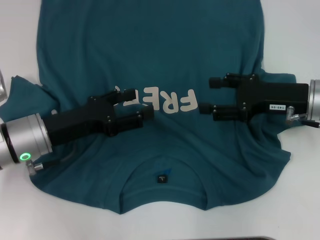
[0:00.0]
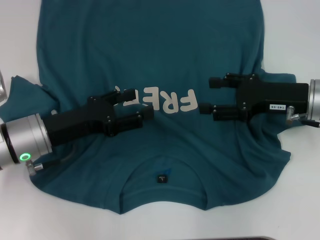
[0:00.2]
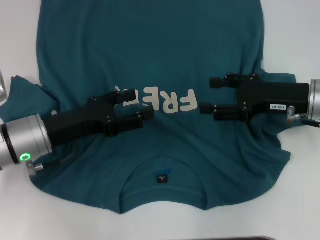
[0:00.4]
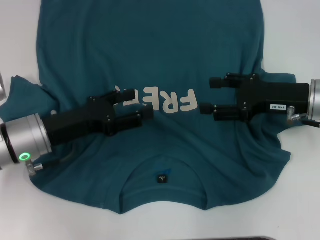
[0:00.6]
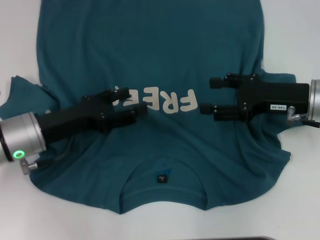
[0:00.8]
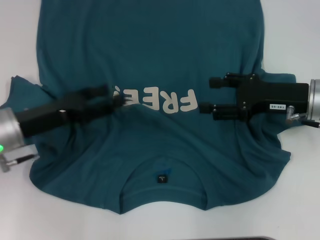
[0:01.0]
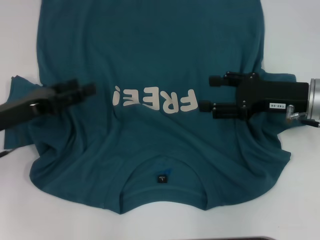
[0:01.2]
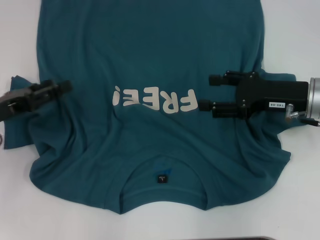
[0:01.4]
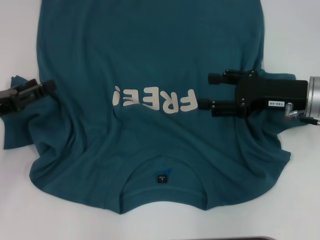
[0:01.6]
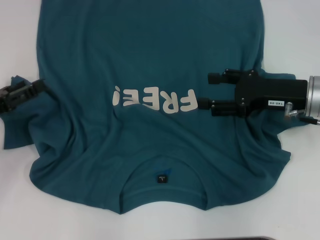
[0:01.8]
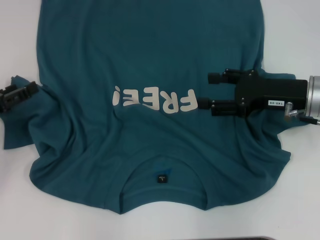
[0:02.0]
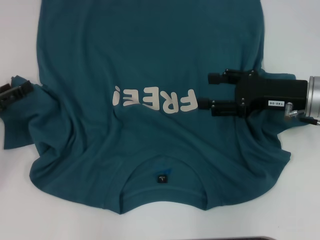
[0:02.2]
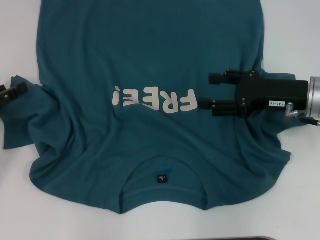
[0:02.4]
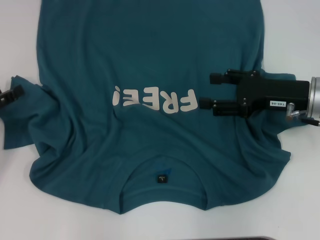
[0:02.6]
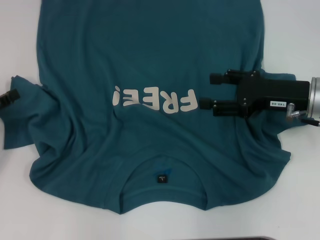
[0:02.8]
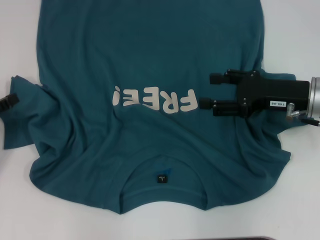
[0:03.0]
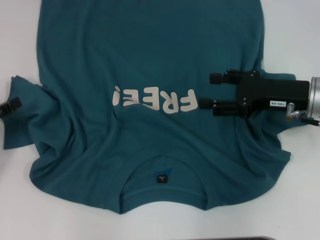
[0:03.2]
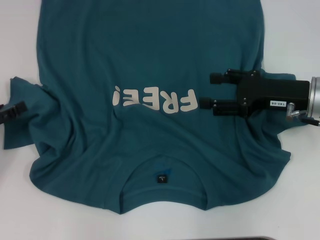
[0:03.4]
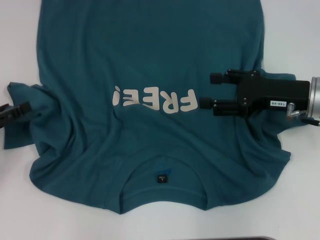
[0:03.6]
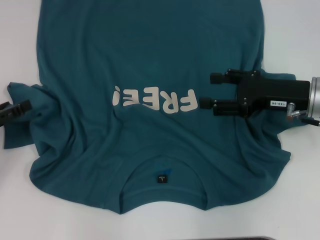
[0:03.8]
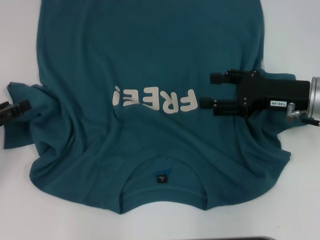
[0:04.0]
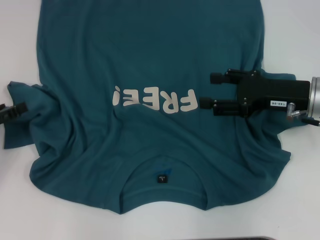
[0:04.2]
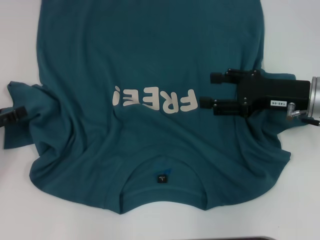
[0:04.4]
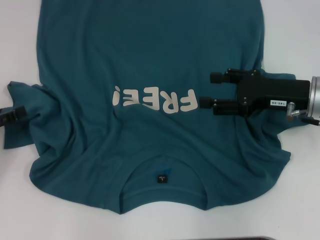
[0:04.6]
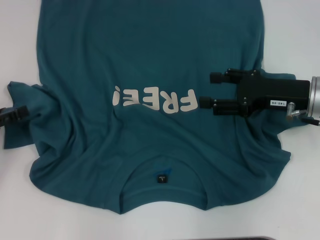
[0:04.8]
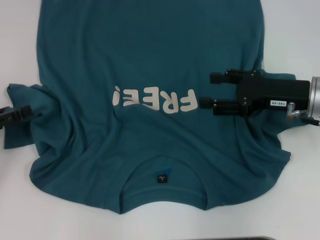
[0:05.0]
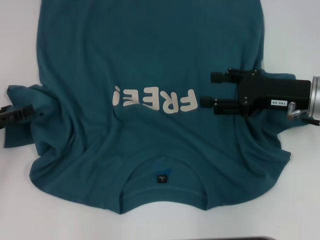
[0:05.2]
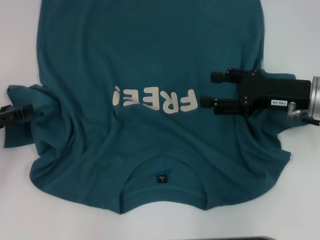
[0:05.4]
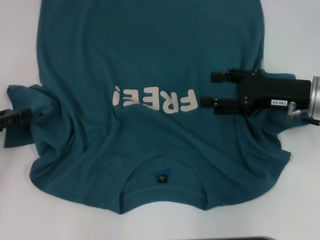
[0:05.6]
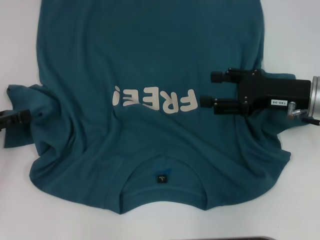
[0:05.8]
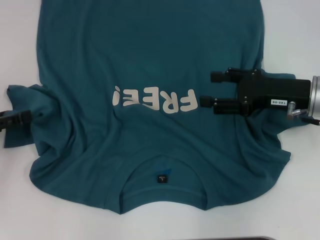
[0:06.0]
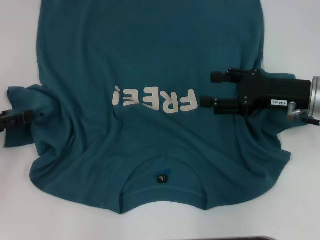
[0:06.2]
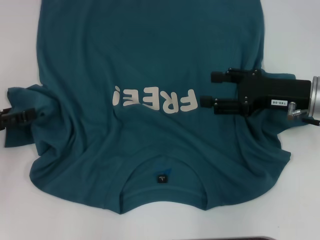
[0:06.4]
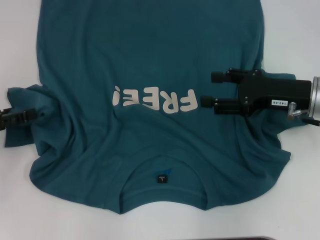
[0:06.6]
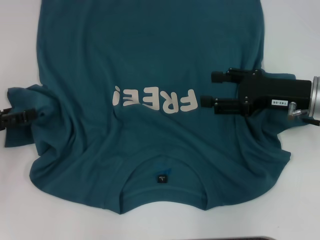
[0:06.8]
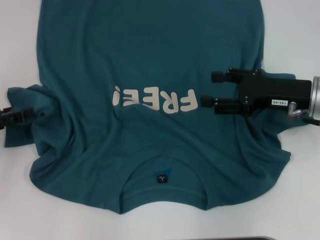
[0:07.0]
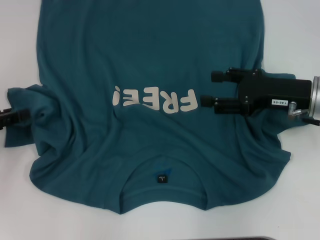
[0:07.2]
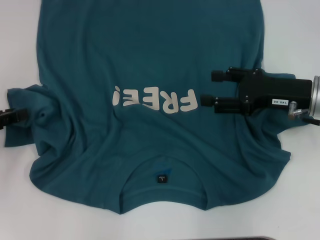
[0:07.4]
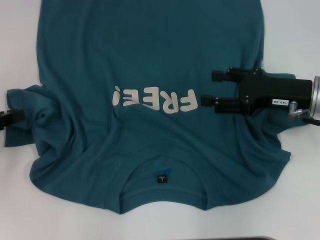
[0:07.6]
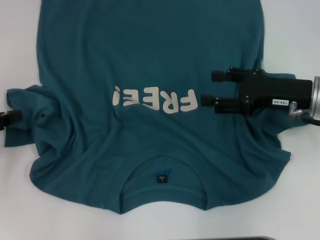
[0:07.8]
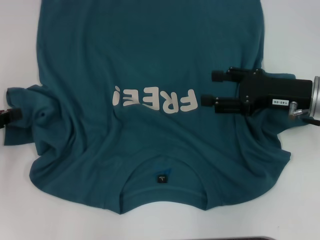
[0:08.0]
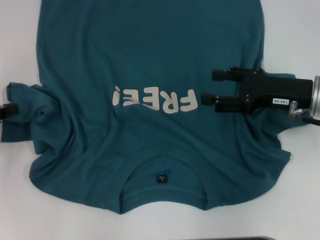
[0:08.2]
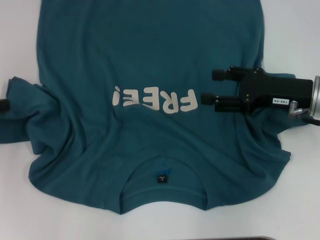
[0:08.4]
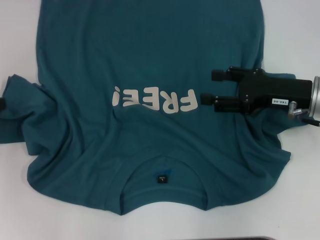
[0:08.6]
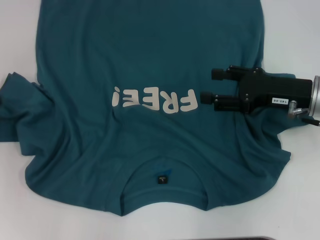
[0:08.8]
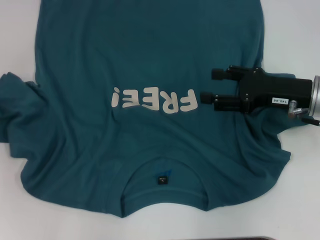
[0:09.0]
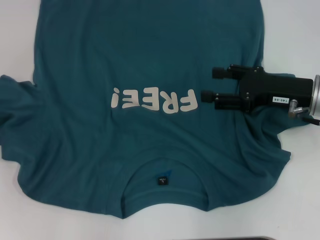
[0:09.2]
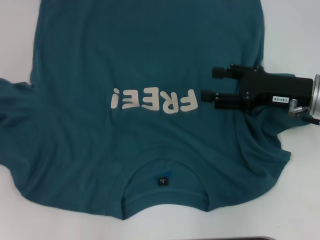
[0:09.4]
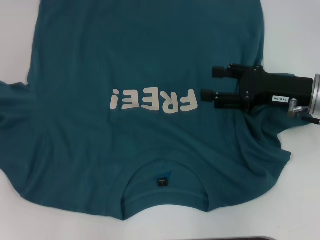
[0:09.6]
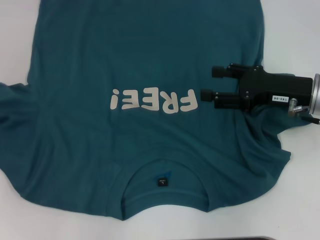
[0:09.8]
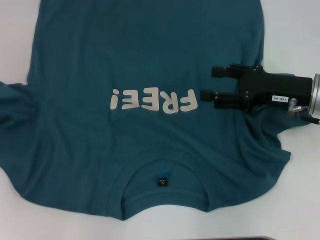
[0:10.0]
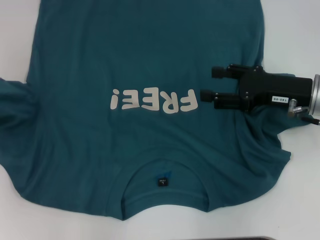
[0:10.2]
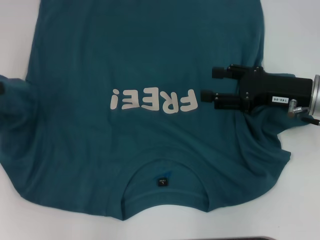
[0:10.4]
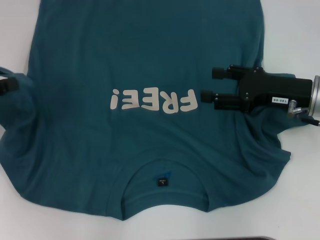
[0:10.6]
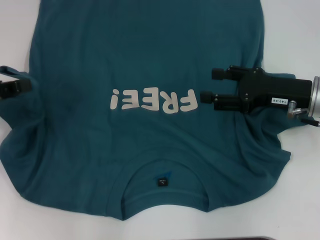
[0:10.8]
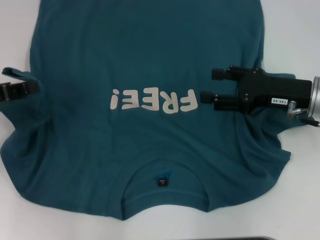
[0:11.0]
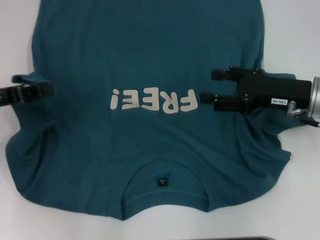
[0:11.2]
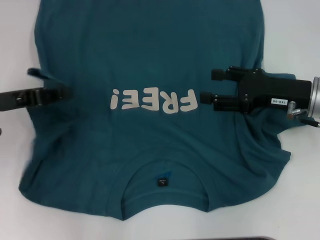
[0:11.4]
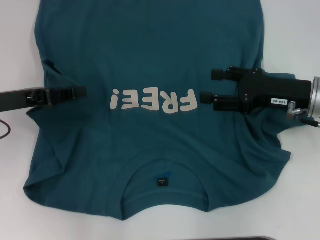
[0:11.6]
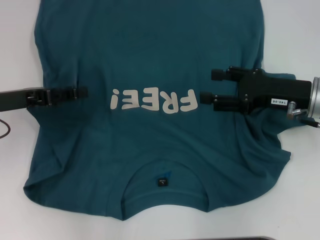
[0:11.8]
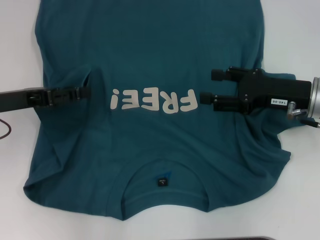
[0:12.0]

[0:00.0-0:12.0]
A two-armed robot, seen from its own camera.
0:00.0 to 0:01.6: The left gripper travels to the left by some 10 cm.
0:01.6 to 0:03.0: There are only small adjustments of the grippers.
0:07.6 to 0:09.0: The grippers move only a little.
0:09.0 to 0:10.4: There are only small adjustments of the grippers.
0:10.4 to 0:12.0: The left gripper heads to the right, covering about 10 cm, and opens up.

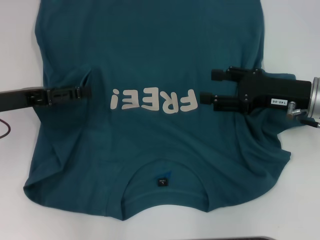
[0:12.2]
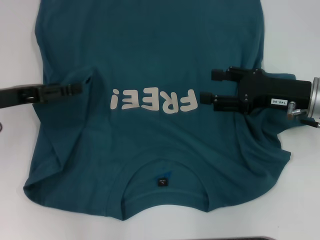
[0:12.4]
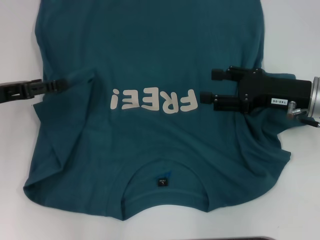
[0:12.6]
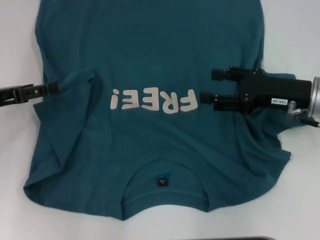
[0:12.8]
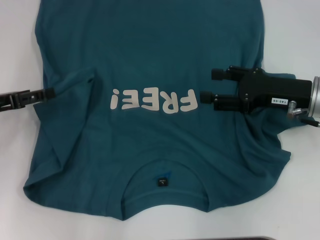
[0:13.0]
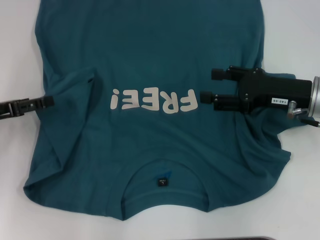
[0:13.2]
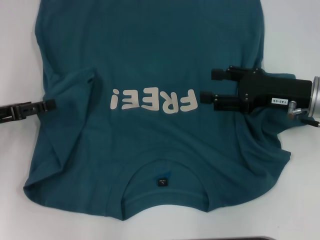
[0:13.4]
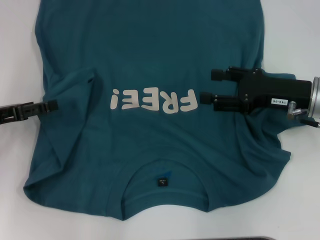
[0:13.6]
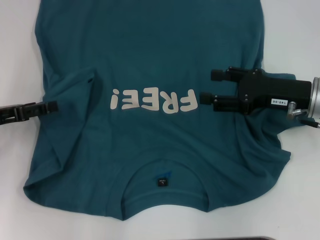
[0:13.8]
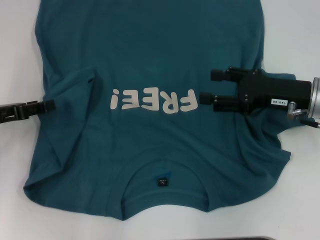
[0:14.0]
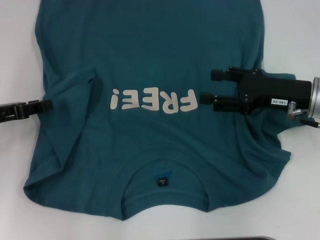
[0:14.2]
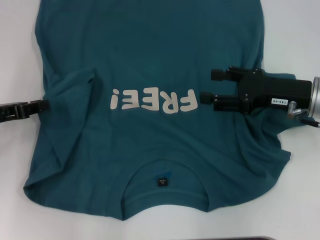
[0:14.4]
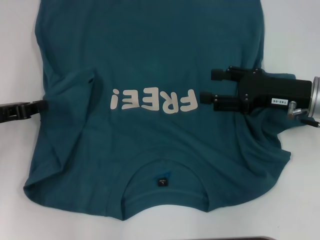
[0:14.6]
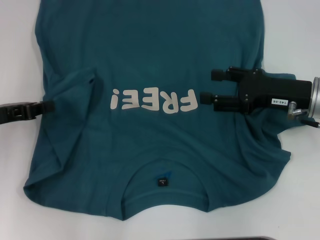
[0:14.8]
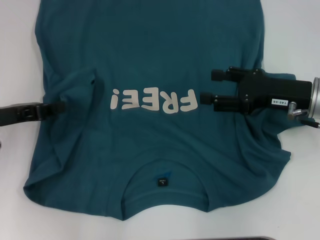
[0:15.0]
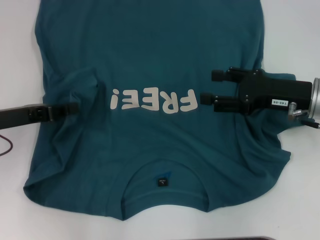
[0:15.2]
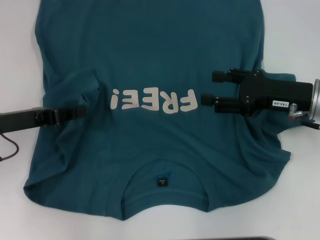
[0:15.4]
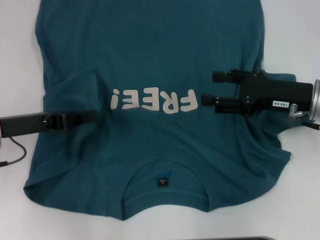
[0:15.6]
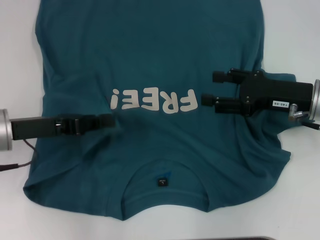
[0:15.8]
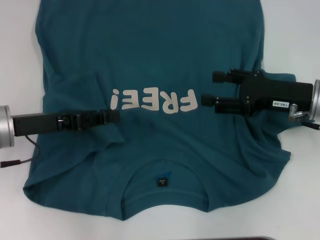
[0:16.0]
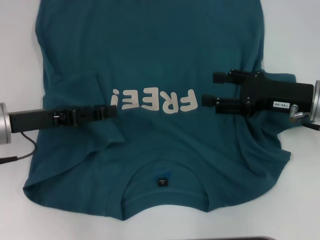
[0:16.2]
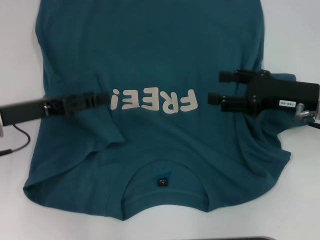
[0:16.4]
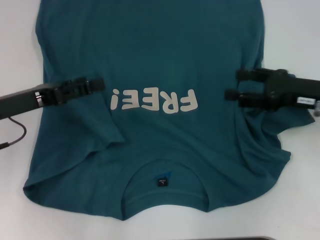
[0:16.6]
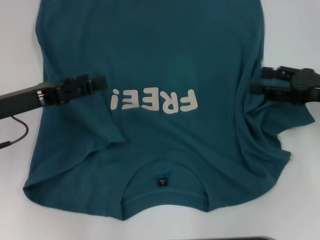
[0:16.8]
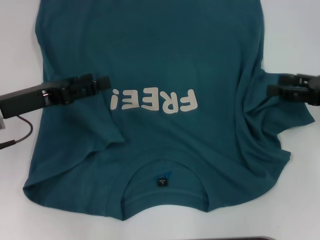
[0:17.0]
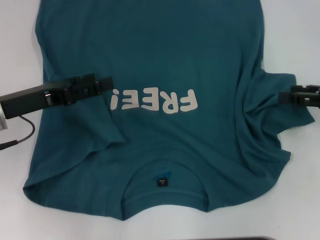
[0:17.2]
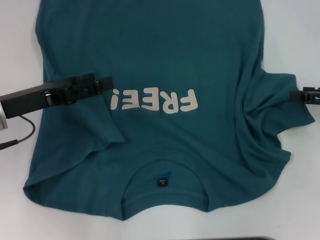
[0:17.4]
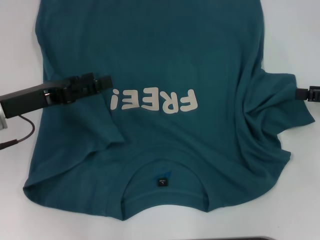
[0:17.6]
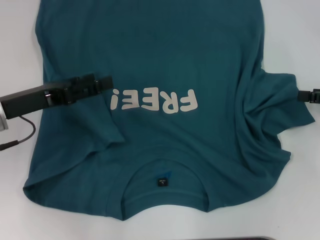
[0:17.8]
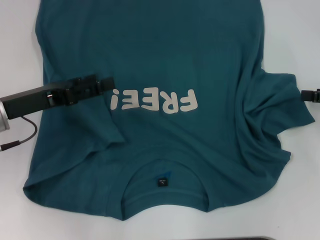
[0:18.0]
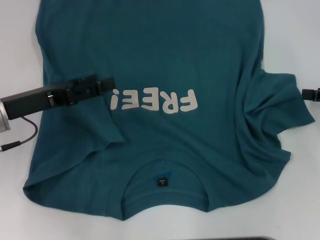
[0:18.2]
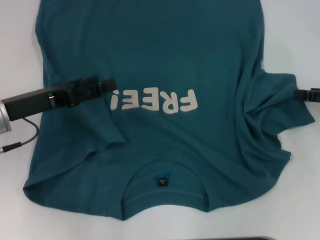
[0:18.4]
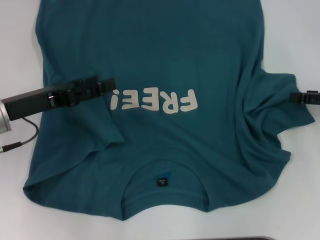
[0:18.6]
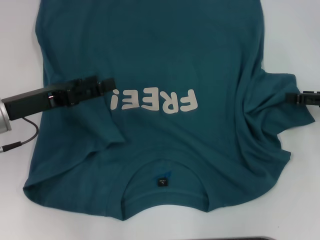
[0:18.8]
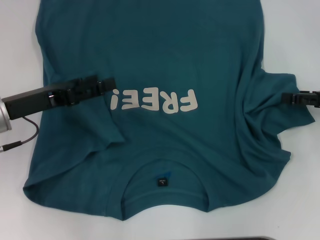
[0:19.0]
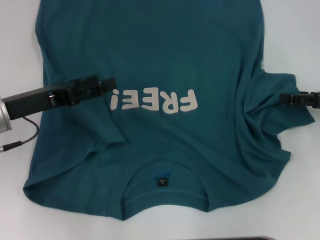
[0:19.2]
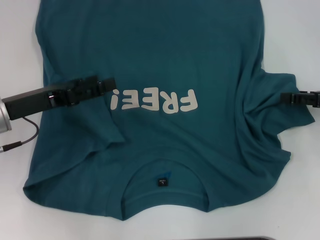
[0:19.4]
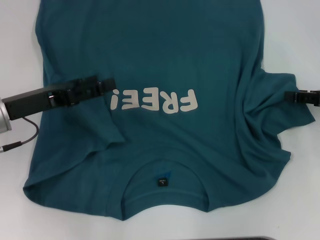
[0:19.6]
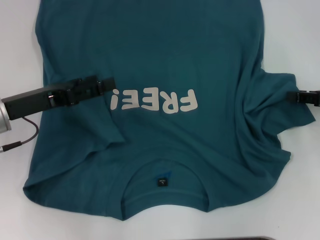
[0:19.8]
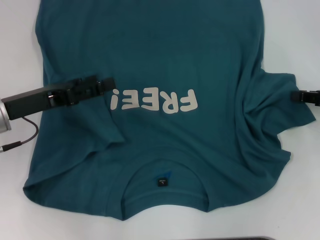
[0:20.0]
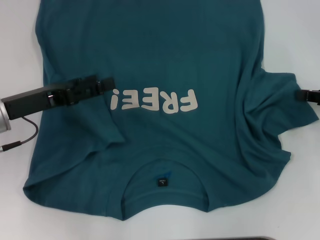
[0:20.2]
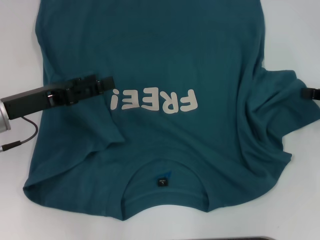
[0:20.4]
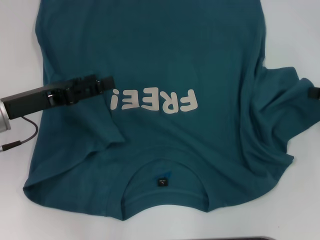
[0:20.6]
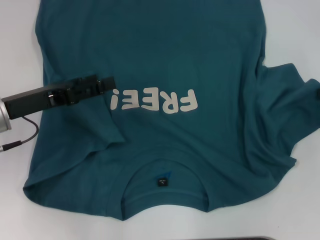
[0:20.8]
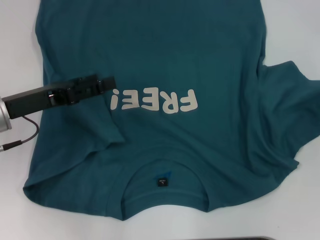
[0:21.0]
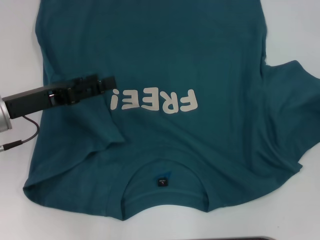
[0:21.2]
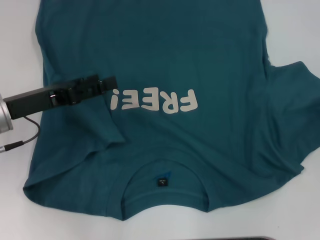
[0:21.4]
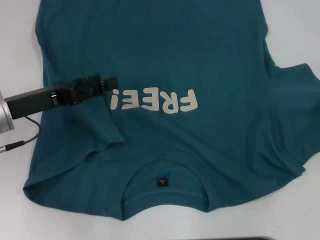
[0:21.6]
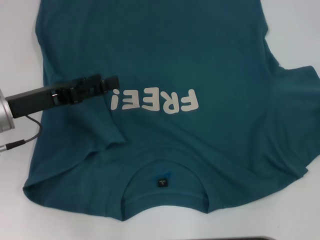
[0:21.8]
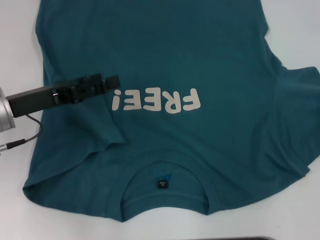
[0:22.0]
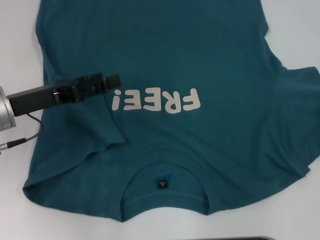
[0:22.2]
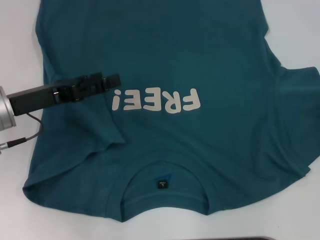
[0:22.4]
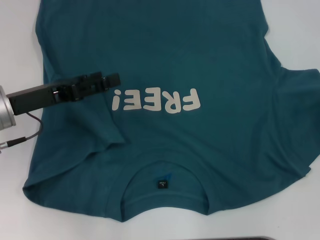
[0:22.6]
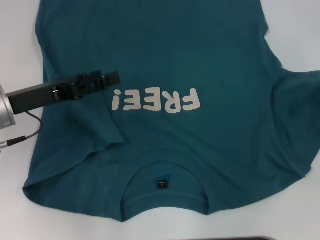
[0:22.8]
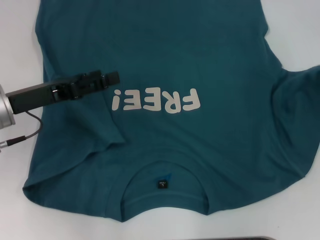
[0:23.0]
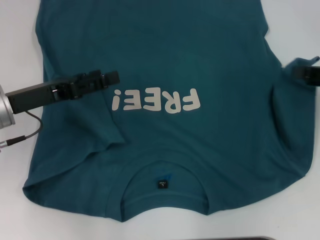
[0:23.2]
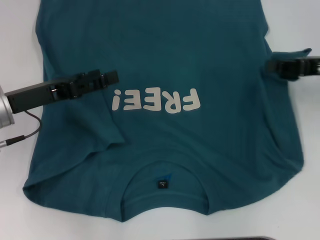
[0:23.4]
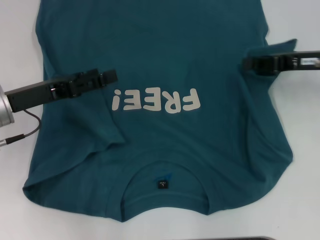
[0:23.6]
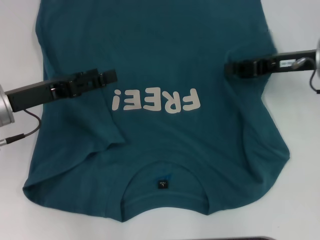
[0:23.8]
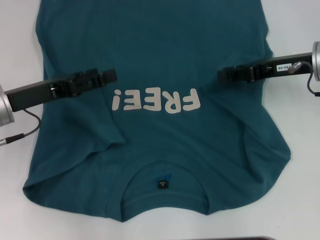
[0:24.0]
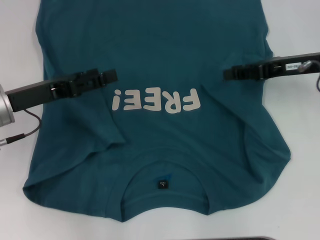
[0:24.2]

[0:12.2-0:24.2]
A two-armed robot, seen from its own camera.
Step, 0:12.2 to 0:16.0: Fold the bottom left sleeve with your left hand.
0:12.2 to 0:13.8: The left gripper moves about 5 cm.
0:13.8 to 0:15.2: The left gripper closes.
0:15.2 to 0:16.6: The left gripper opens up.
0:16.6 to 0:18.2: The right gripper moves to the right, roughly 10 cm.
0:18.2 to 0:19.8: The grippers stay close to where they were, moving slightly.
0:19.8 to 0:21.2: The right gripper travels to the right by about 5 cm, and closes up.
0:21.2 to 0:22.6: The grippers make only small movements.
0:22.6 to 0:24.2: The right gripper shifts about 20 cm to the left and forward.
